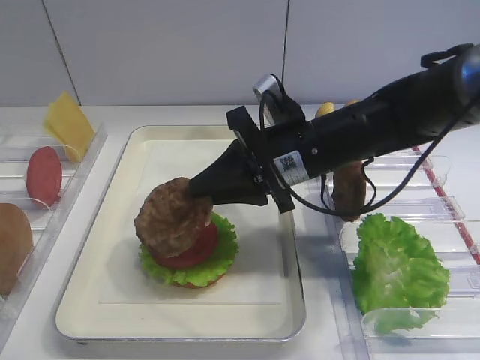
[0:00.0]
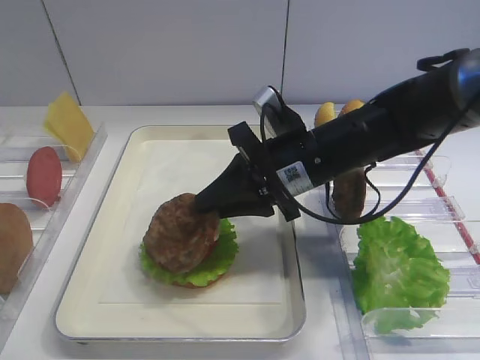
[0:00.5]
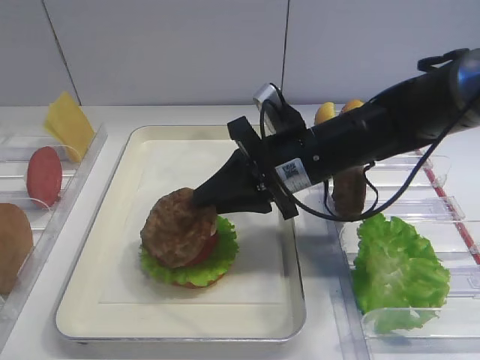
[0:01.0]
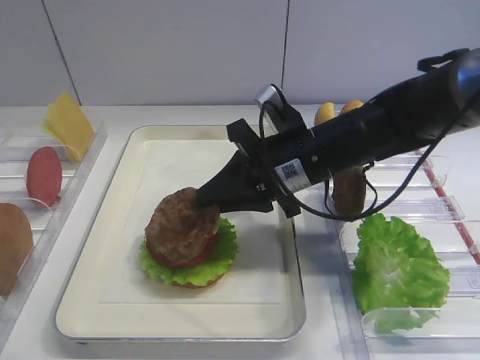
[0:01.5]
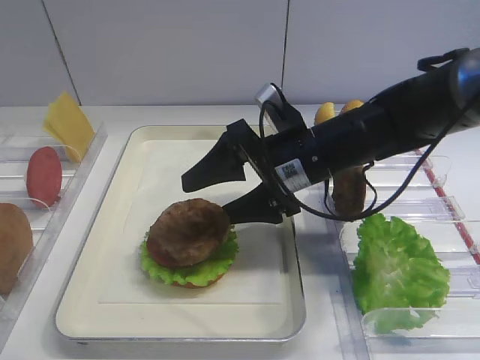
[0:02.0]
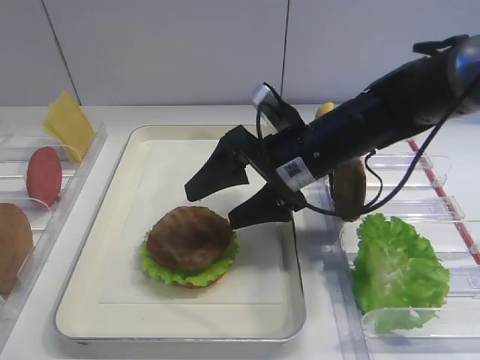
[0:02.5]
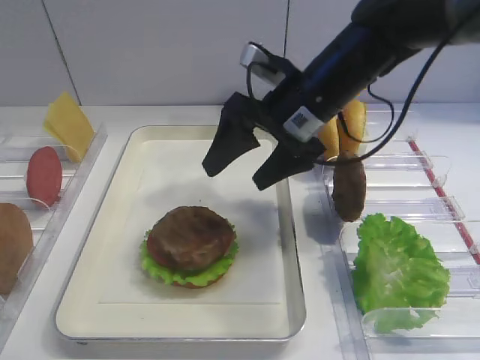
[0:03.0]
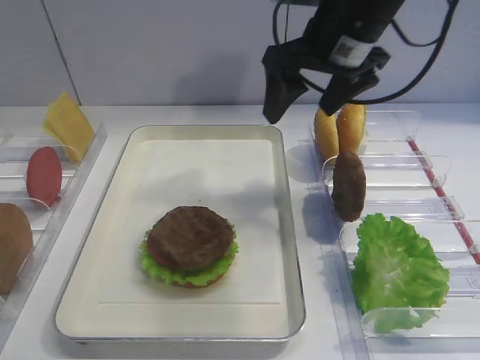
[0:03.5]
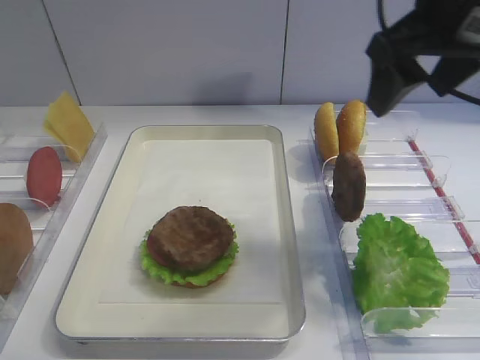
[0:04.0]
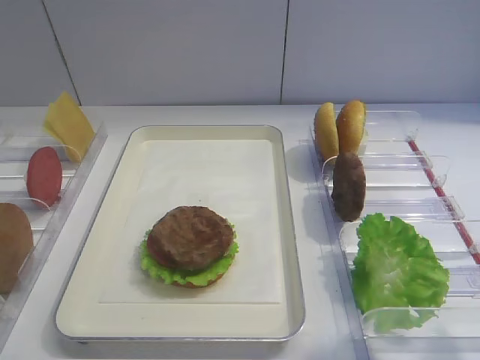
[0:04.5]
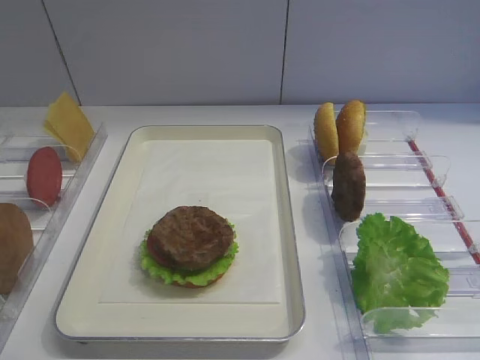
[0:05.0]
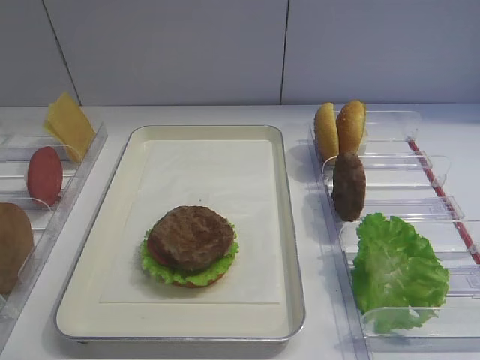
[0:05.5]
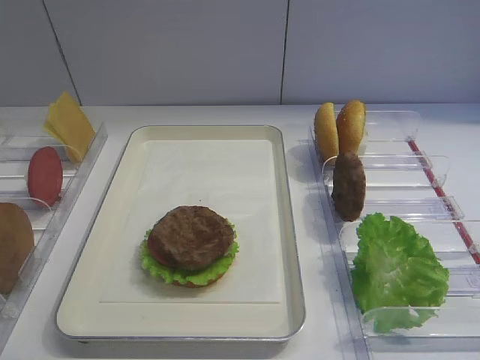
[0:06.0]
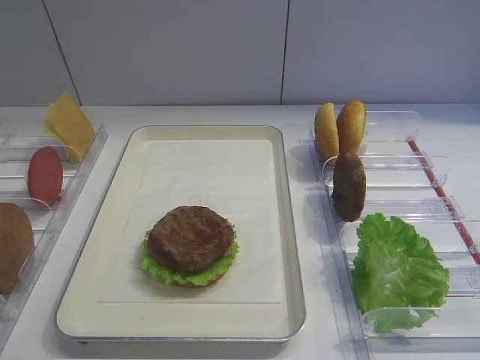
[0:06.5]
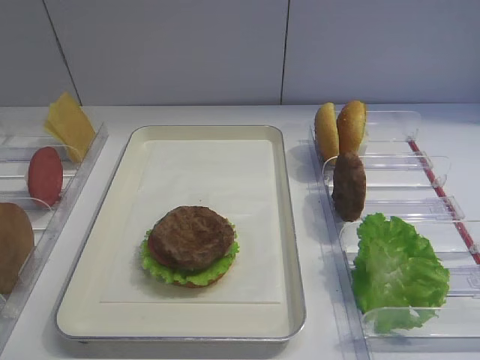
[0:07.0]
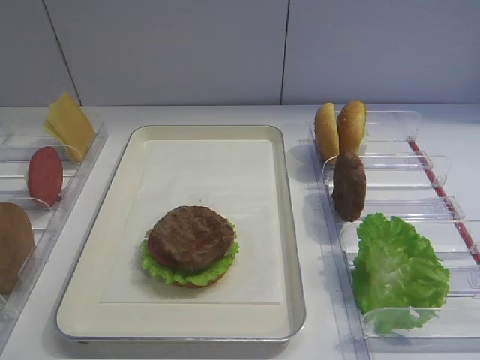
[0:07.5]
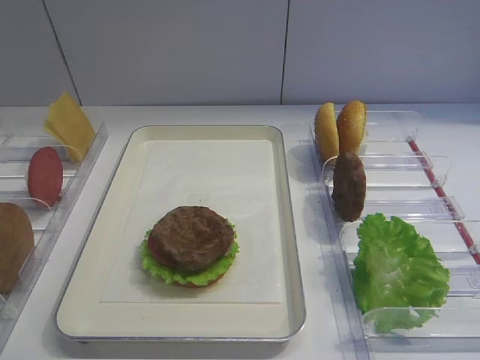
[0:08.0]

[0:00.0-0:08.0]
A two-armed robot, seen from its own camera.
Step, 0:00.0 to 0:02.5: Place the cutlet on the tomato slice with the right gripper.
0:00.0 to 0:02.0: The right gripper opens.
0:02.0 to 0:04.0: The right gripper shifts about 20 cm upward and to the right.
0:04.0 to 0:06.0: The right gripper goes about 30 cm backward.
0:06.0 to 0:08.0: Both grippers stay about where they are.

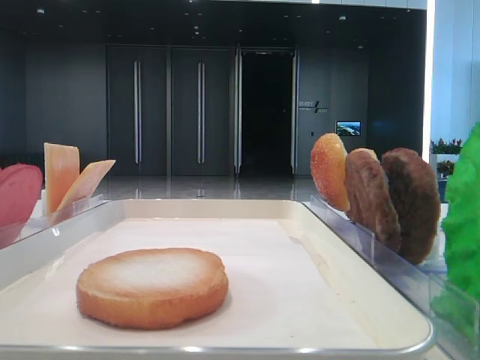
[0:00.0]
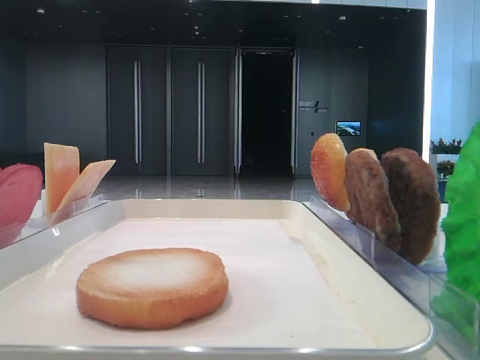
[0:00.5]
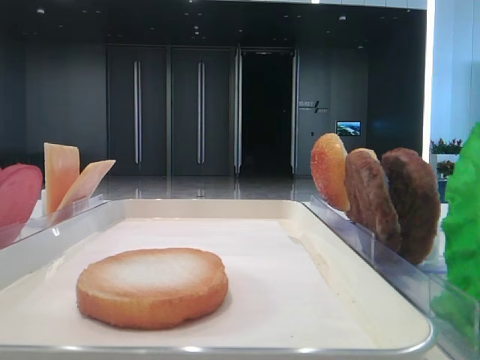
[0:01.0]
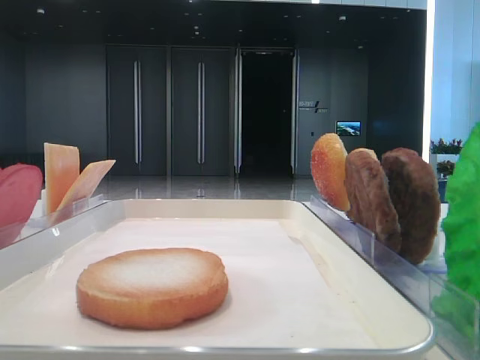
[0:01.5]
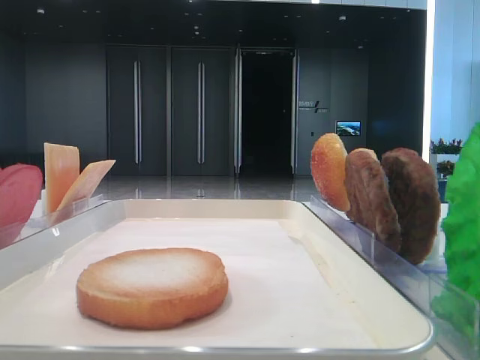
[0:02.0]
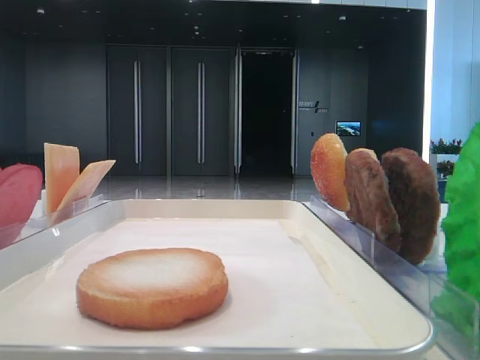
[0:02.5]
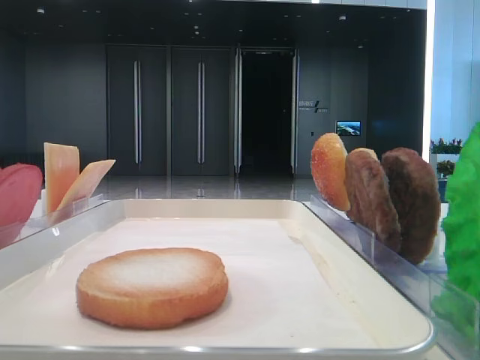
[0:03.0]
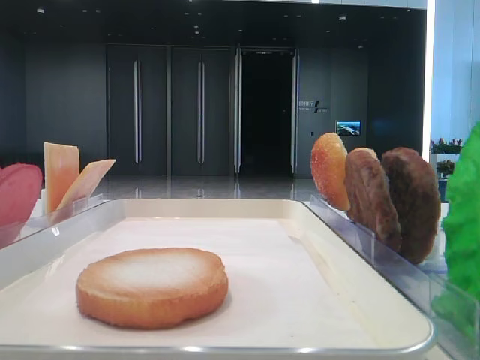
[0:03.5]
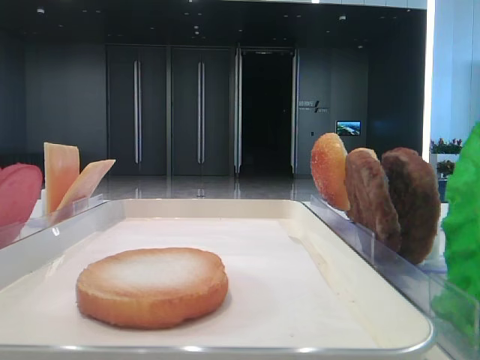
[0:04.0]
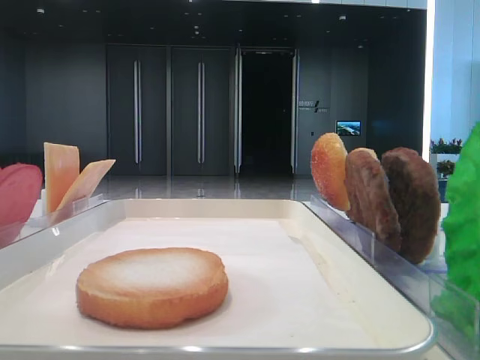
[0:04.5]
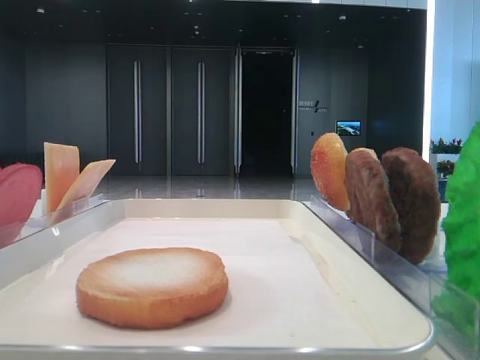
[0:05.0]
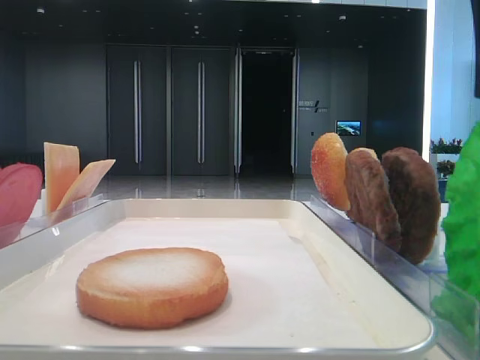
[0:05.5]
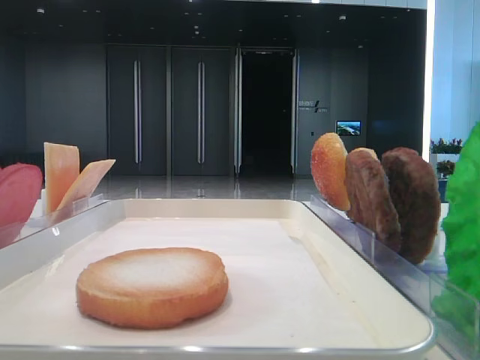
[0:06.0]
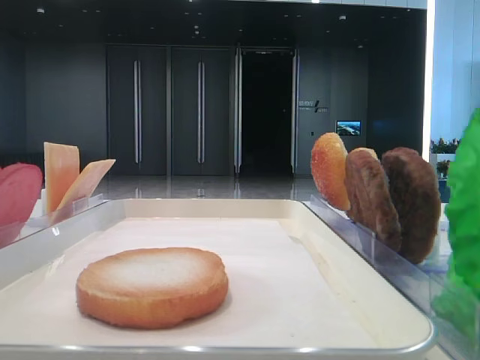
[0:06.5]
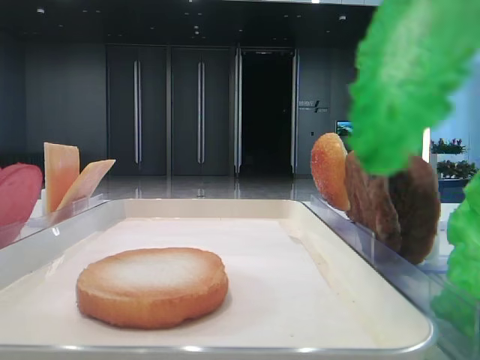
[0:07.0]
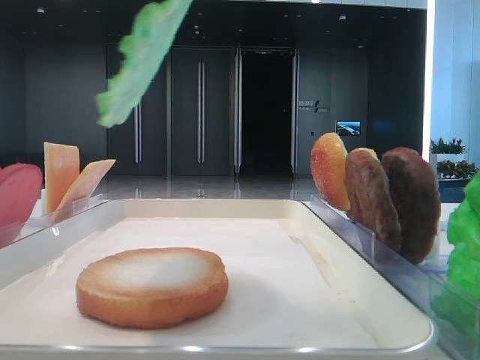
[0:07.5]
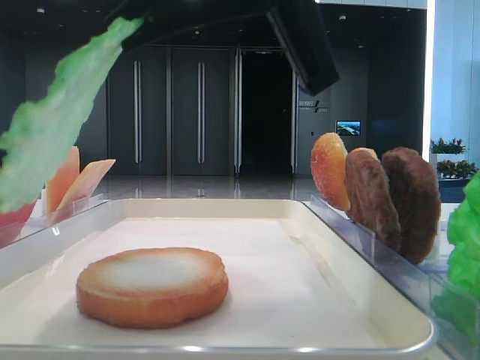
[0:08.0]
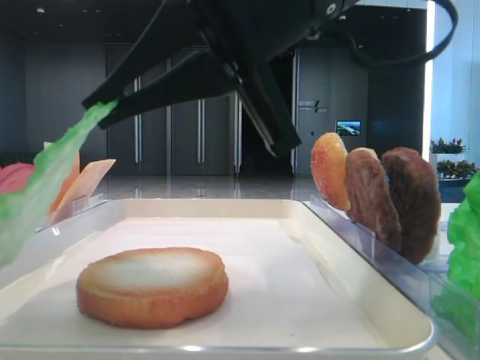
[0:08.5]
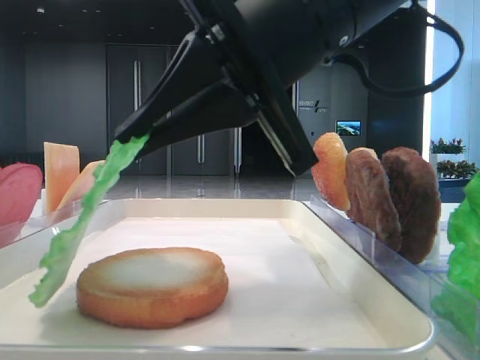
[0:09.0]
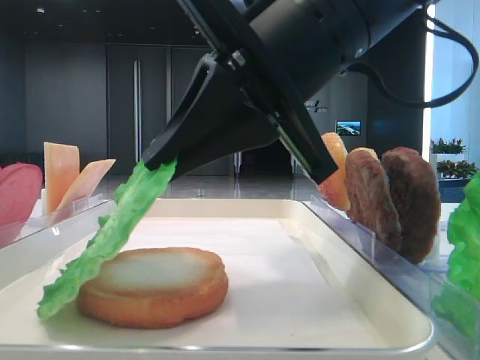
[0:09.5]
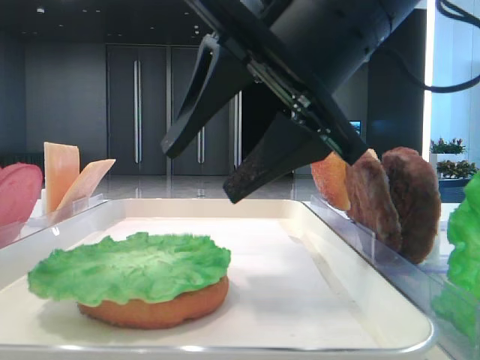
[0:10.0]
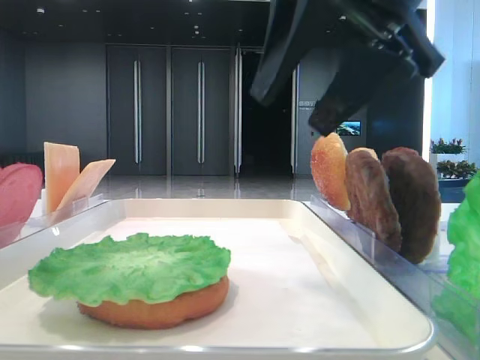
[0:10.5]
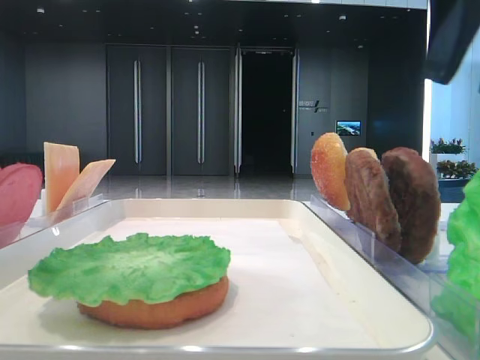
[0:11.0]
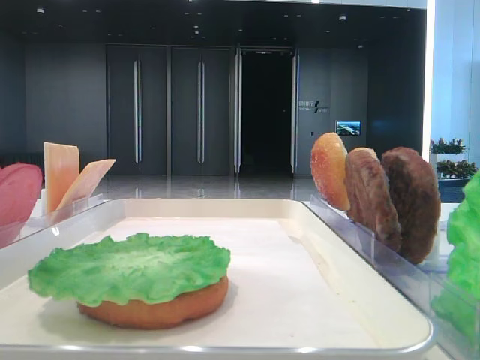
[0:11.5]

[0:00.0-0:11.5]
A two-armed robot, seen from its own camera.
Step, 0:06.5 to 0:09.5: Place the lettuce leaf on the bottom bread with the right hand.
0:06.0 to 0:07.5: The right gripper travels to the left by approximately 5 cm.
0:07.5 to 0:09.5: The right gripper heads downward and forward, covering approximately 10 cm.
0:09.5 to 0:11.5: The right gripper heads to the right, covering approximately 20 cm, and opens.

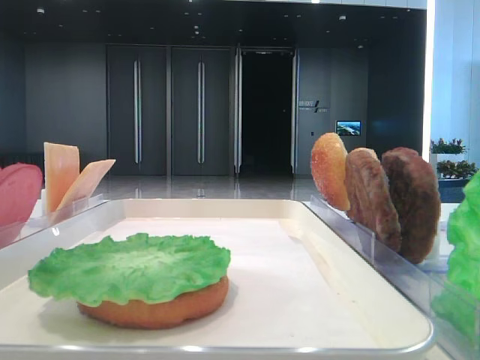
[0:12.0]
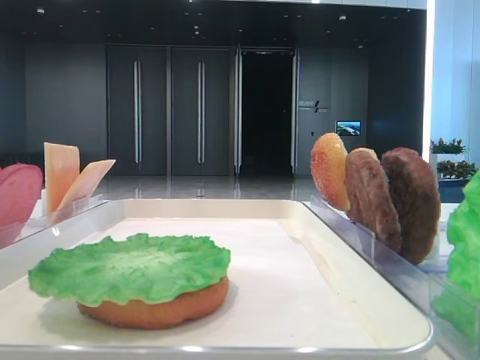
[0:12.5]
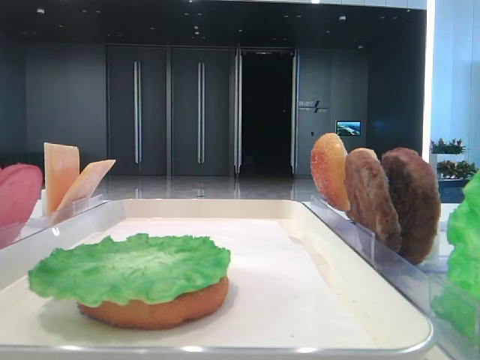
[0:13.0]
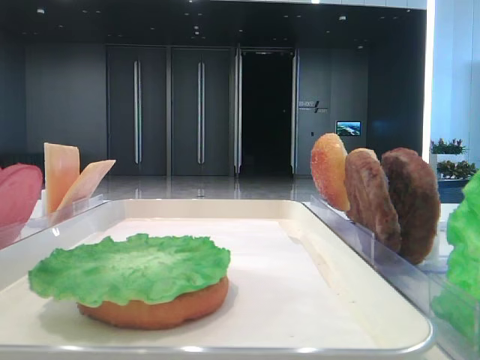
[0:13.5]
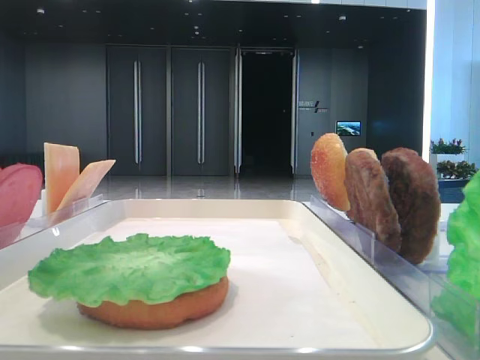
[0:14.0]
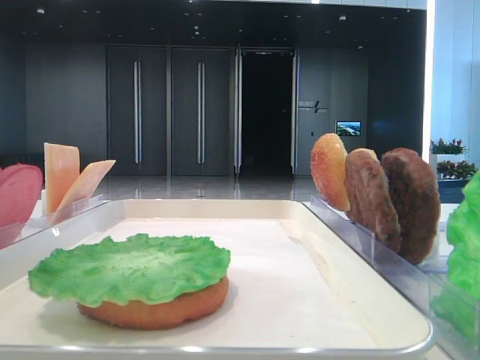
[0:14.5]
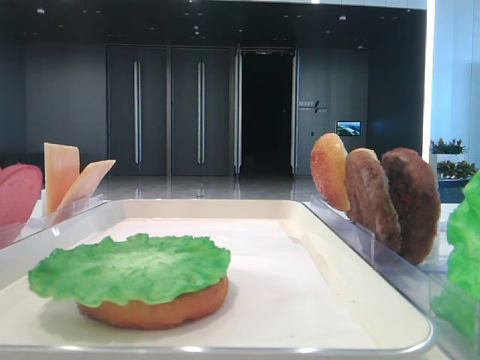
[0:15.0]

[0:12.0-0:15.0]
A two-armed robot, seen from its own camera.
0:13.5 to 0:15.0: Neither gripper changes place.

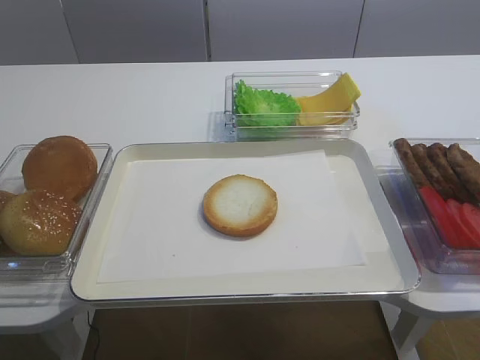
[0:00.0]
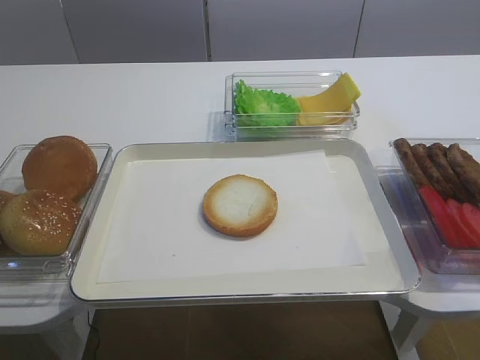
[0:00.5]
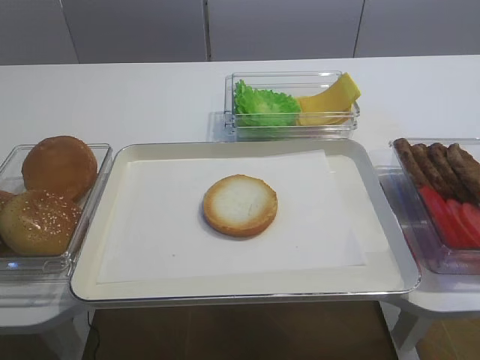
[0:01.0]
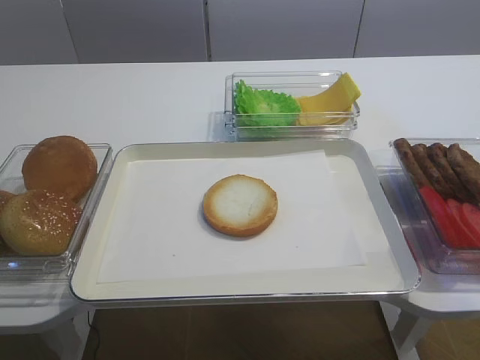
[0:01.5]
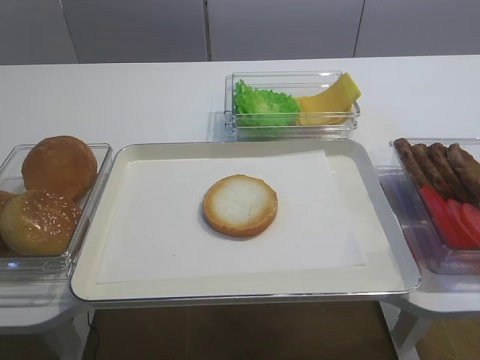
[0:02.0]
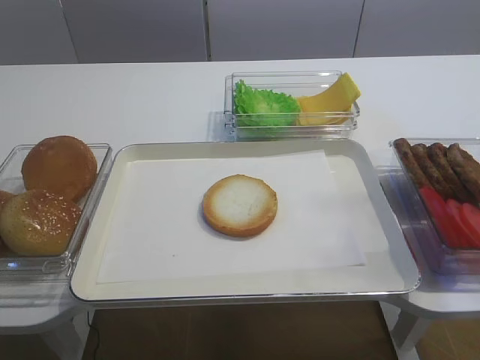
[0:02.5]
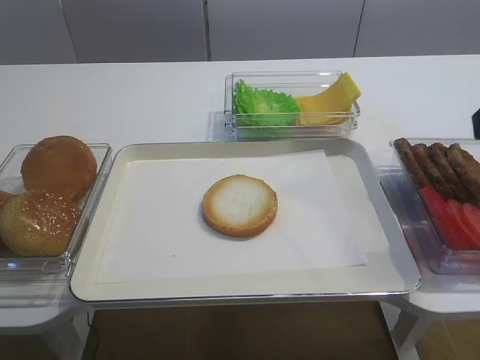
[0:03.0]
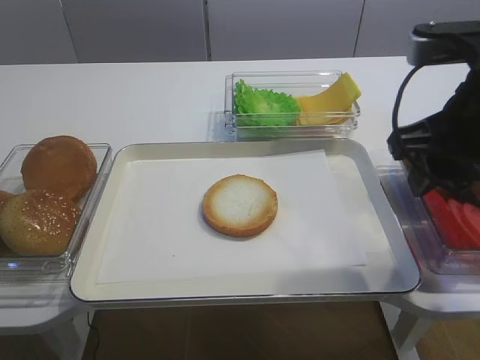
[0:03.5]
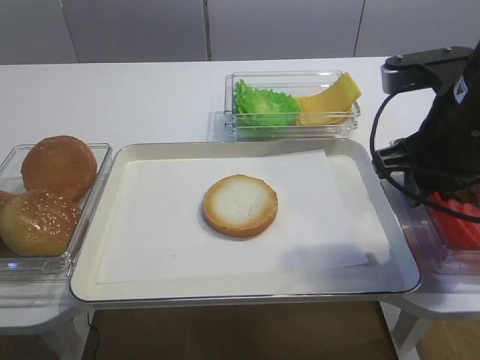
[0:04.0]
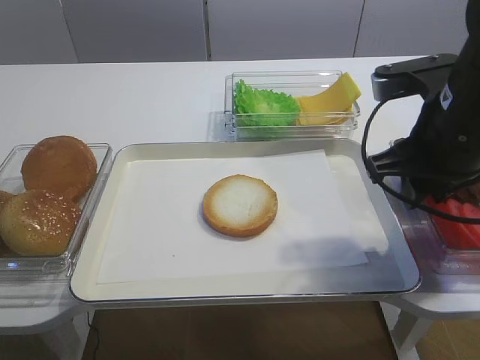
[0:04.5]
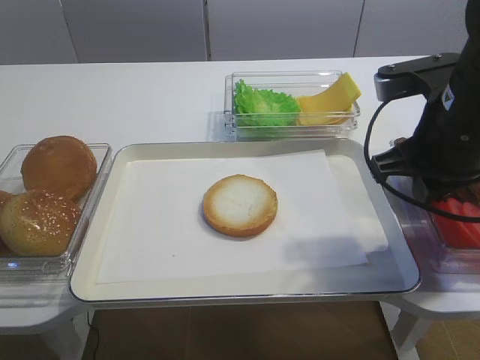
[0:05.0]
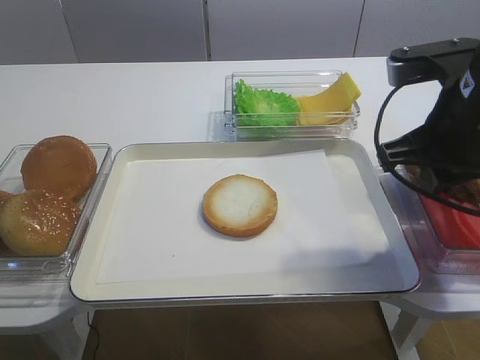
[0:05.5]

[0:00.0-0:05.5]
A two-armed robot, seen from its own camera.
0:02.0 to 0:03.5: The right gripper is displaced forward by some 20 cm.
0:03.5 to 0:05.5: The right gripper closes its fingers.
